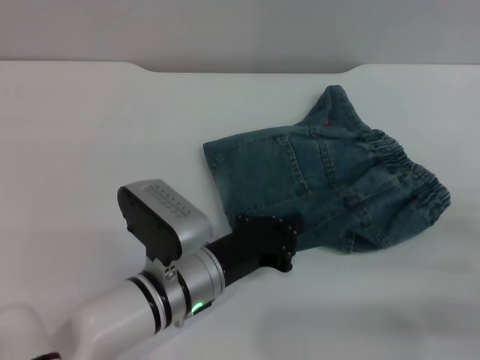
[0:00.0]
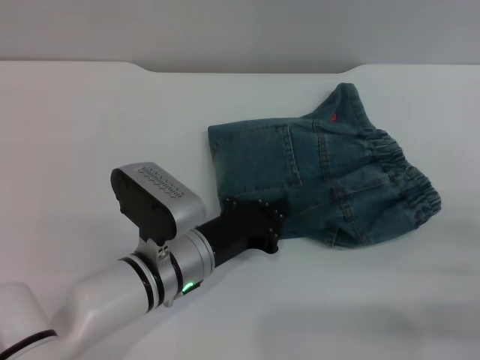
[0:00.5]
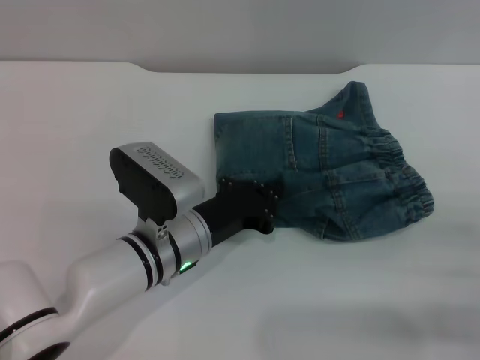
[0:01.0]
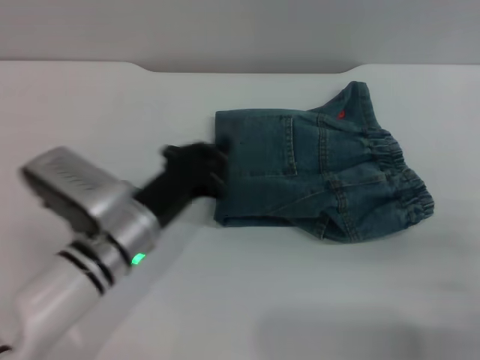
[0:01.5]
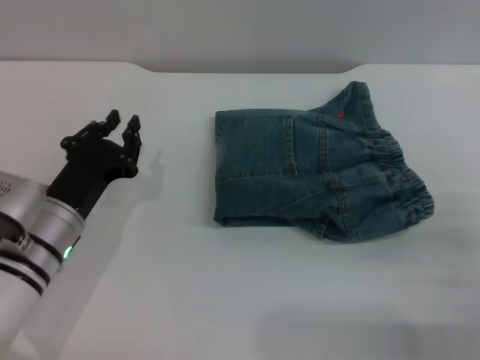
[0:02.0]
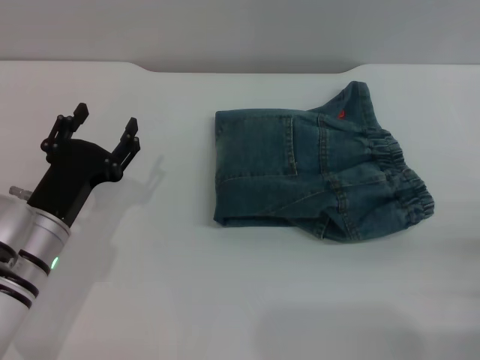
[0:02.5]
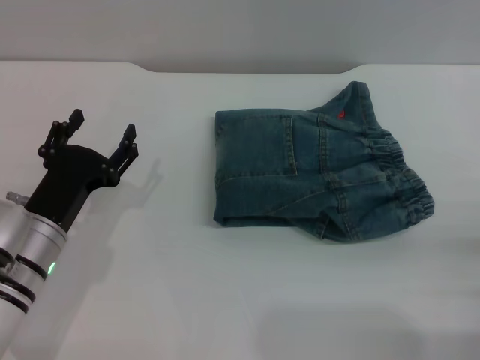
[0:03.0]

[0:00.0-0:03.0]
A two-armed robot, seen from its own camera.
0:00.0 to 0:01.5: The left gripper moves to the left, about 5 cm.
0:01.5 to 0:03.0: The left gripper moves to the left, approximately 10 cm, and opens up. Meanwhile the right gripper opens up.

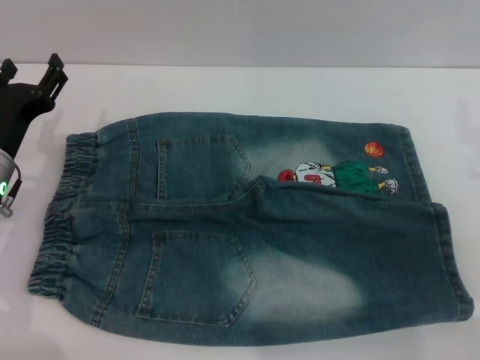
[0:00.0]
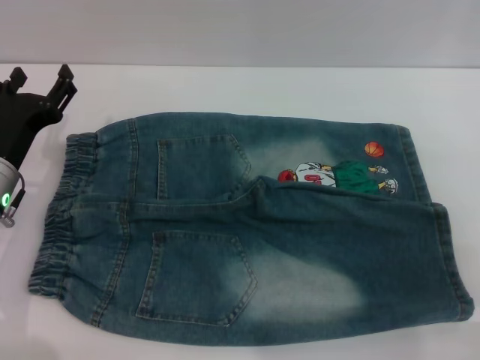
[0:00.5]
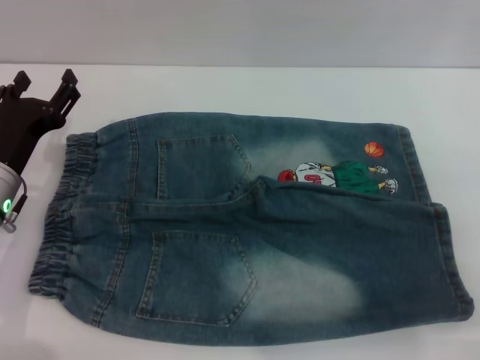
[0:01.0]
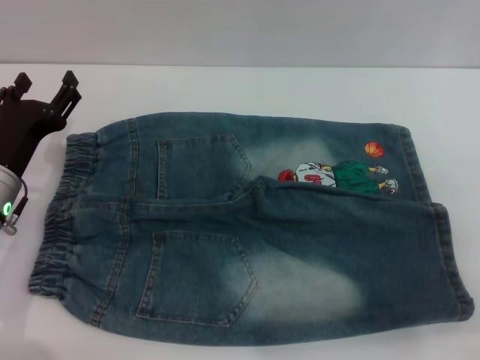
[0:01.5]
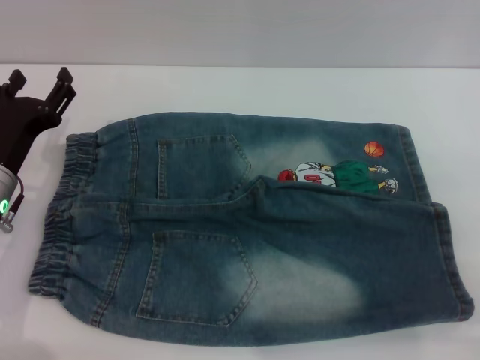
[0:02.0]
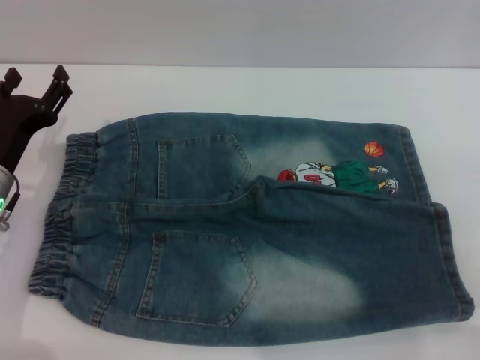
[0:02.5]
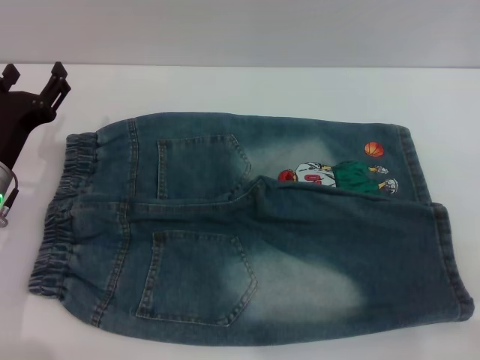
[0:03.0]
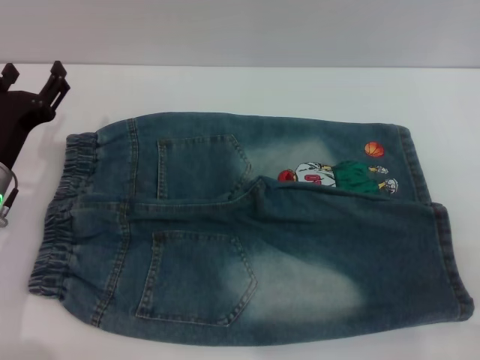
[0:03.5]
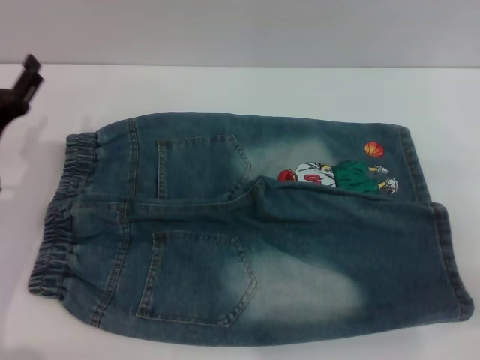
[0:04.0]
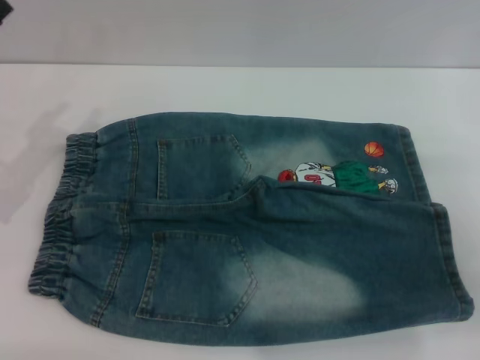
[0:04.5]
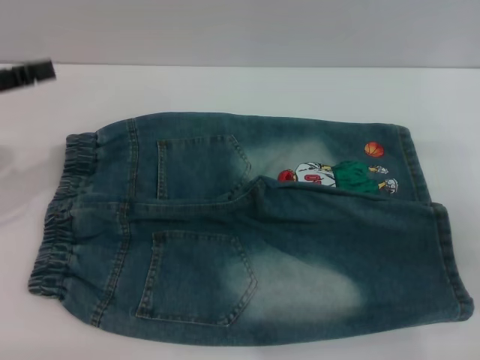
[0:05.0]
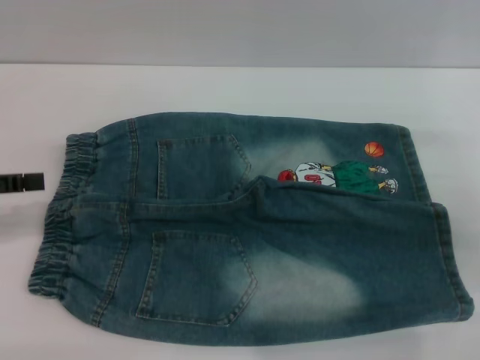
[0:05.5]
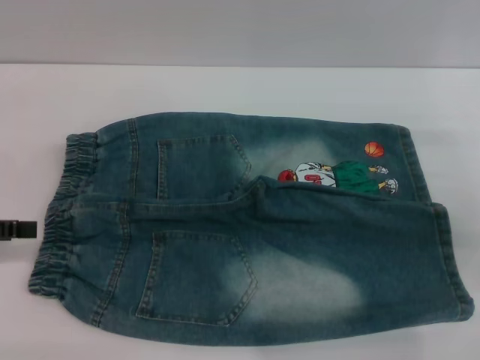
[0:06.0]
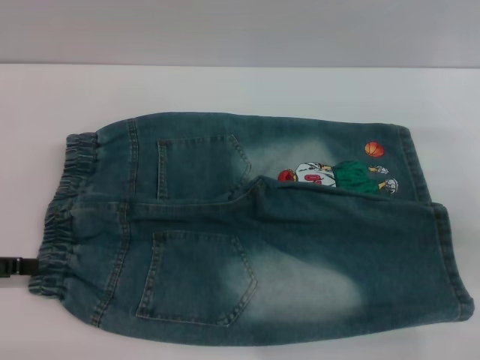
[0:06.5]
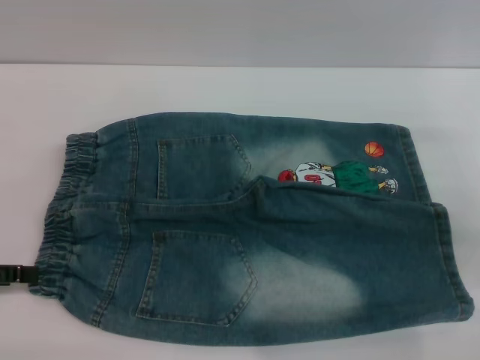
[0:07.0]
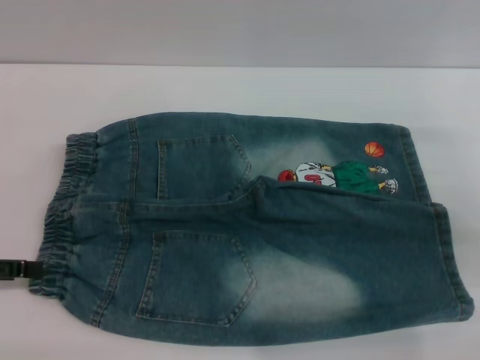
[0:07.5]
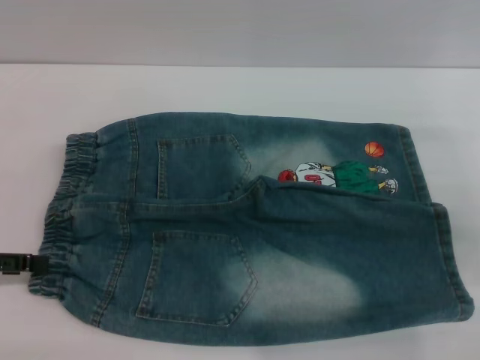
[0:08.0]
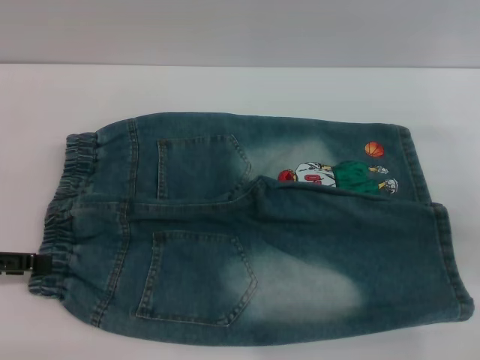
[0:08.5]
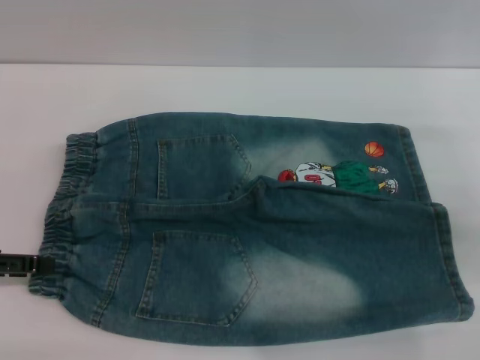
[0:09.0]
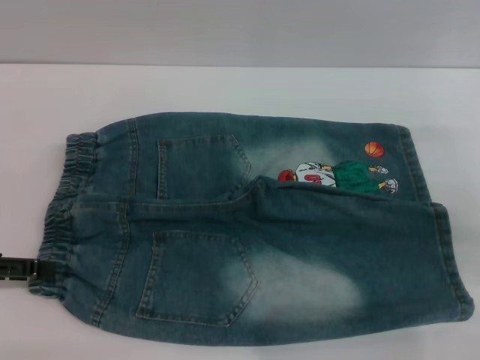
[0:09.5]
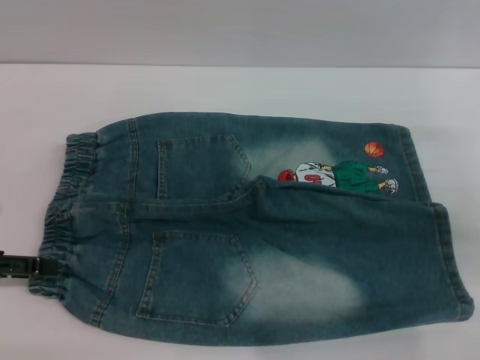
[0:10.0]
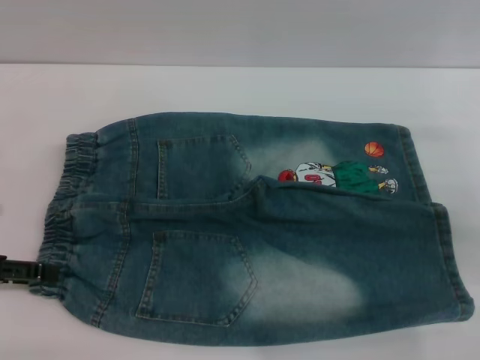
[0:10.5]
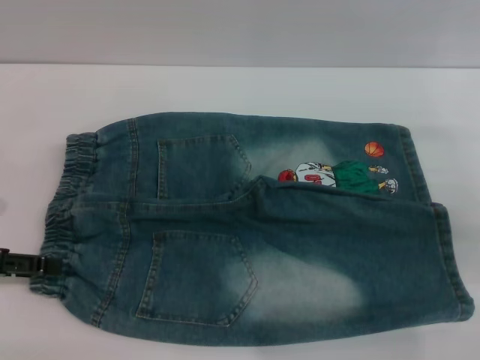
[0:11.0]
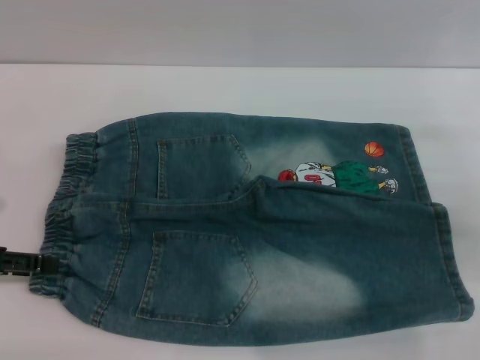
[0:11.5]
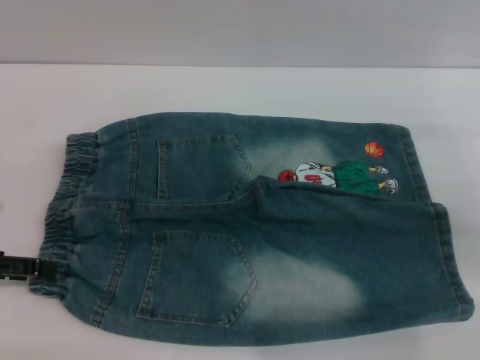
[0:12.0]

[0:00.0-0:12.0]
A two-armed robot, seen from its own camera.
0:02.0 to 0:04.0: There are only small adjustments of the grippers.
0:04.0 to 0:06.0: The left gripper moves to the left and upward, about 10 cm.
0:06.0 to 0:08.0: There are only small adjustments of the grippers.
0:08.0 to 0:10.0: Both grippers stay put.
0:10.0 to 0:12.0: Both grippers stay put.

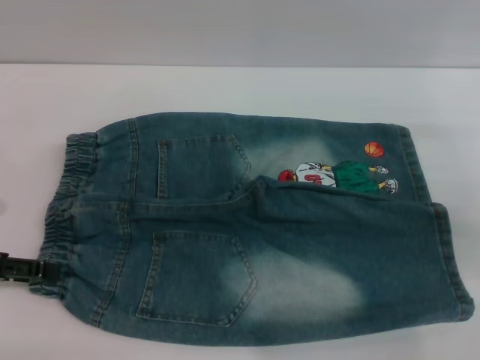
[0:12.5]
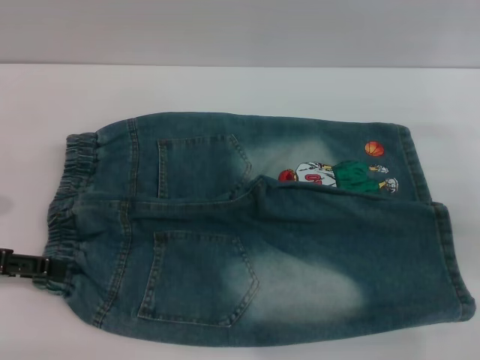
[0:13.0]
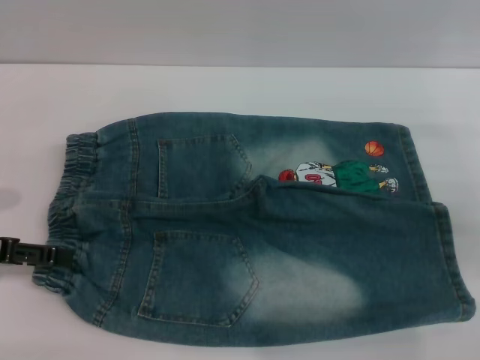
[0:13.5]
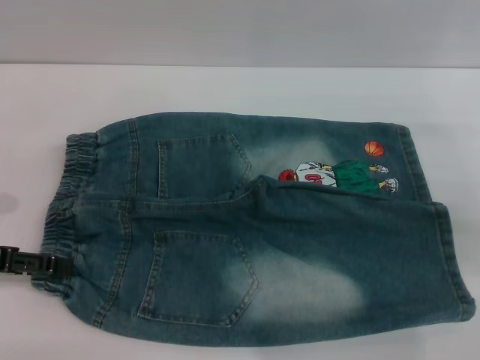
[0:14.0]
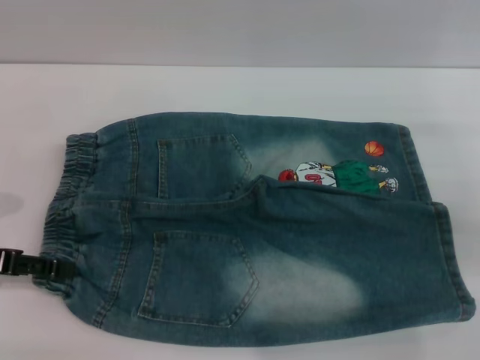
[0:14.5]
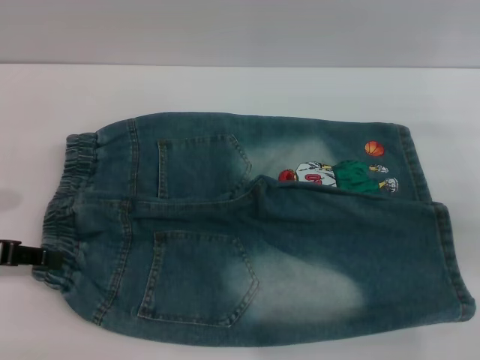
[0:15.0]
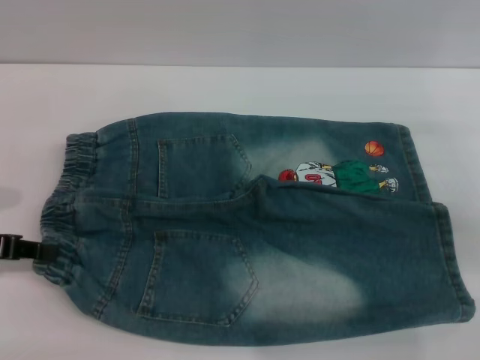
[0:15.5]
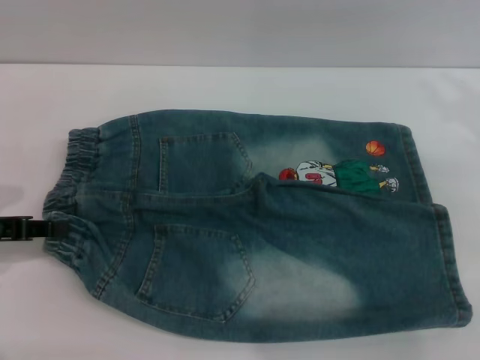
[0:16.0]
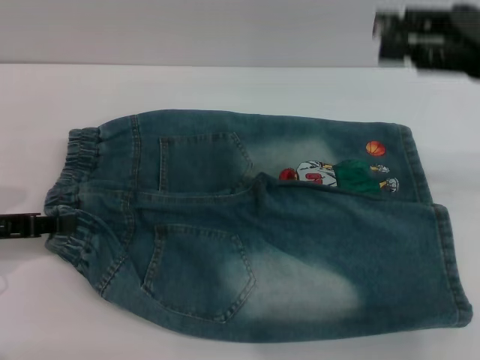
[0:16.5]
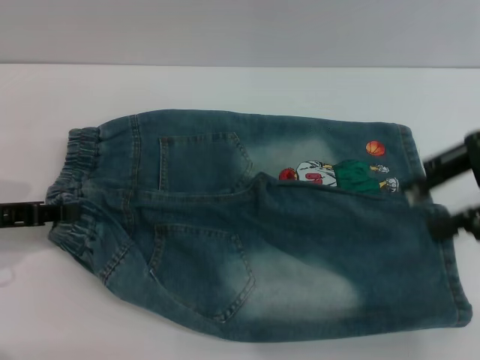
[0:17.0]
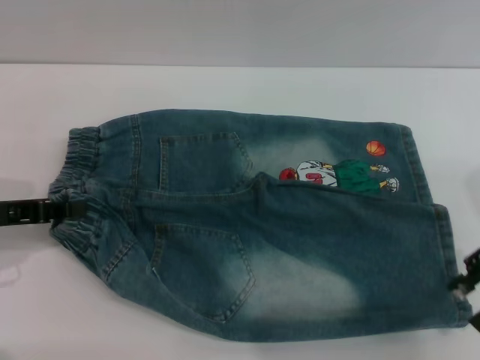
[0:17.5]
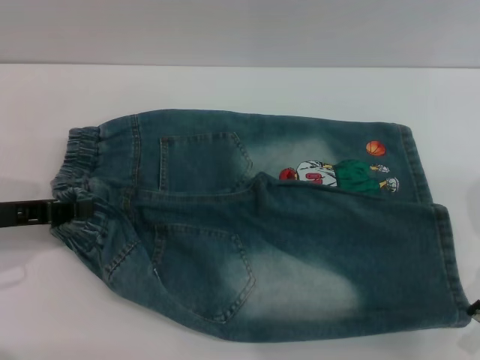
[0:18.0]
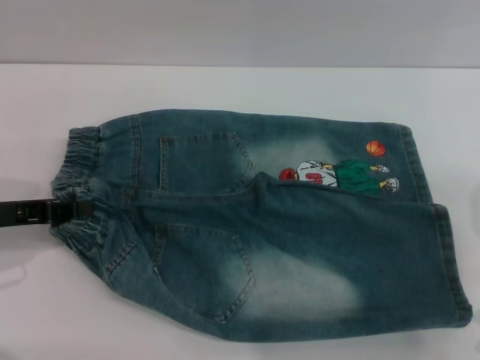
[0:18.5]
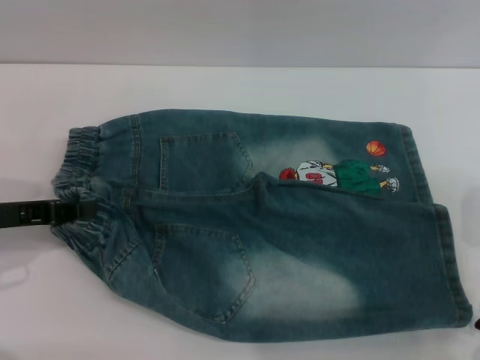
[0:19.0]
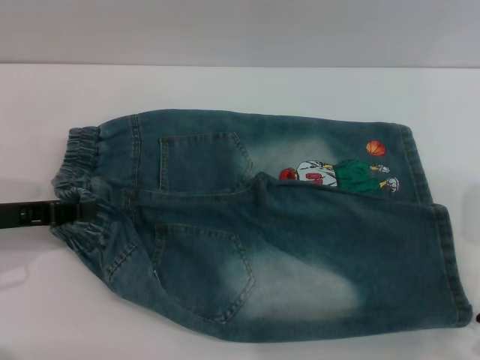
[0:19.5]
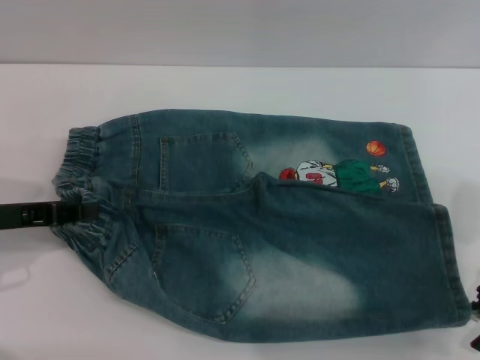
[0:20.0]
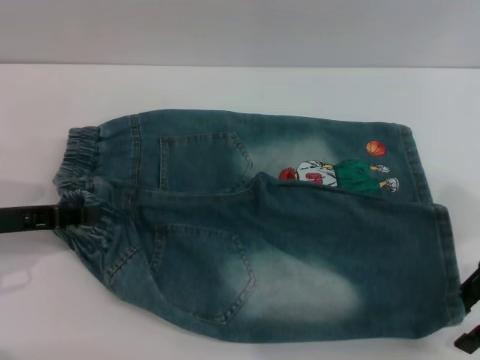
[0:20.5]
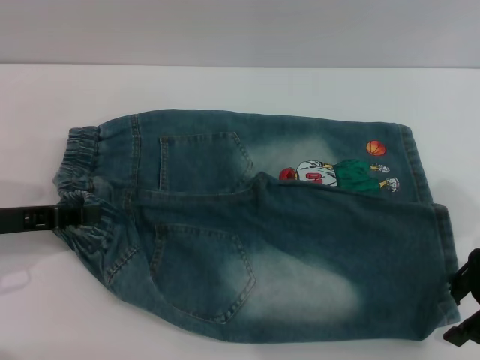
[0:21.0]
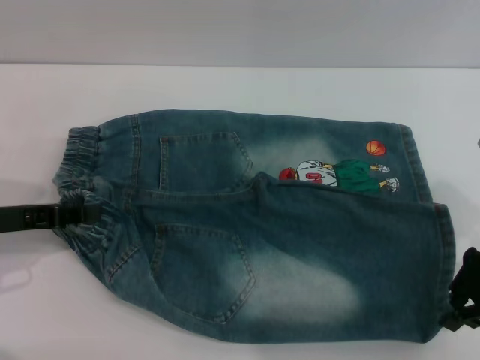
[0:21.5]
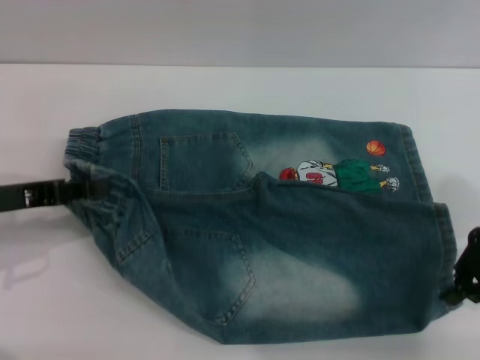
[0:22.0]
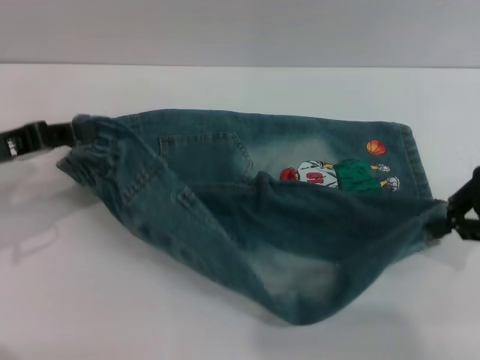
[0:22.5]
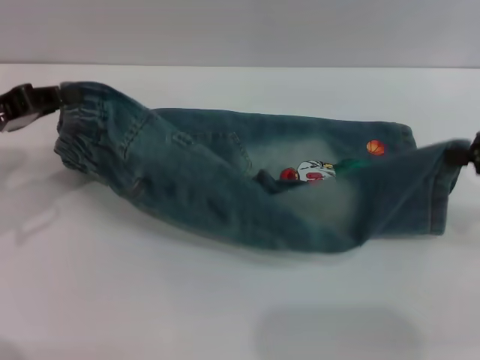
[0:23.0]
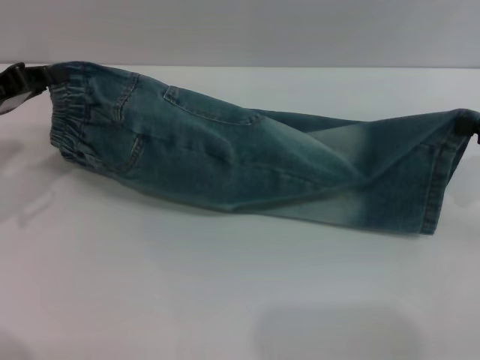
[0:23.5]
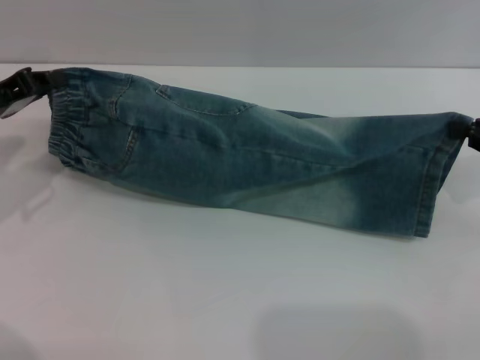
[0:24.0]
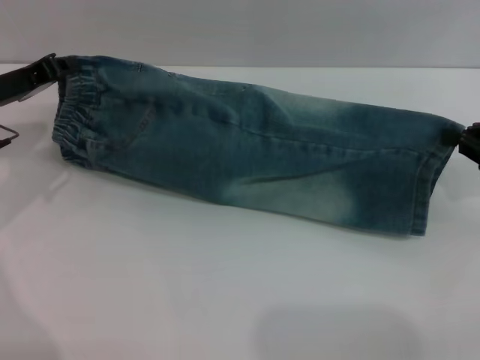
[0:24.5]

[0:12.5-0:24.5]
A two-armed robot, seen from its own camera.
0:12.5 to 0:14.5: The grippers move only a little.
0:14.5 to 0:16.5: The left gripper closes its fingers, while the right gripper is displaced upward and to the left by approximately 15 cm.
0:16.5 to 0:18.5: The right gripper travels downward by some 10 cm.
0:18.5 to 0:20.5: The grippers move only a little.
0:20.5 to 0:22.5: The right gripper moves roughly 5 cm, and closes up.
0:22.5 to 0:24.5: The right gripper heads downward, covering approximately 5 cm. Meanwhile the left gripper travels forward by some 10 cm.
